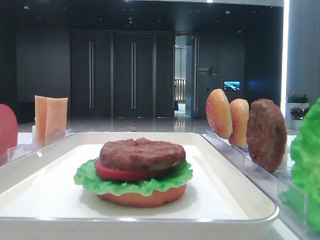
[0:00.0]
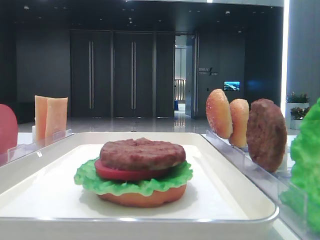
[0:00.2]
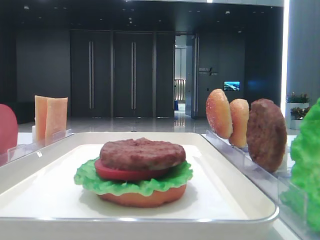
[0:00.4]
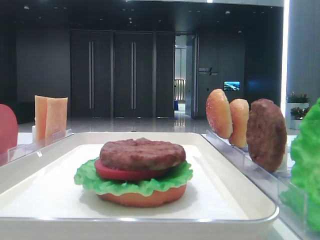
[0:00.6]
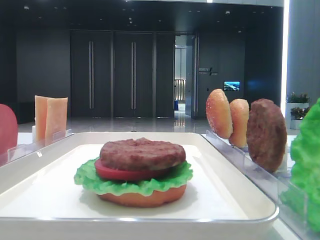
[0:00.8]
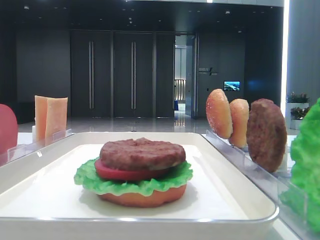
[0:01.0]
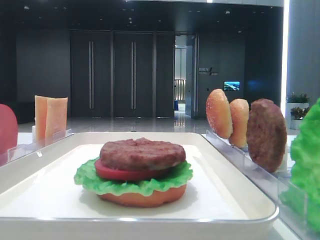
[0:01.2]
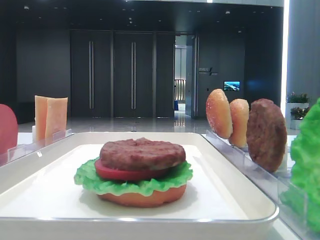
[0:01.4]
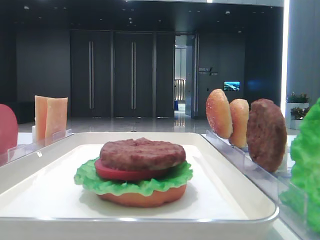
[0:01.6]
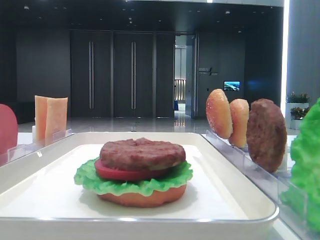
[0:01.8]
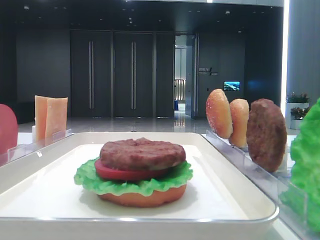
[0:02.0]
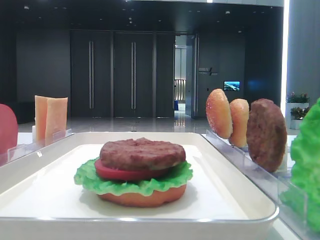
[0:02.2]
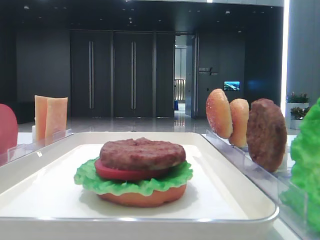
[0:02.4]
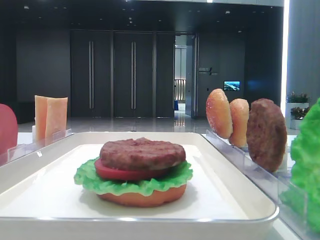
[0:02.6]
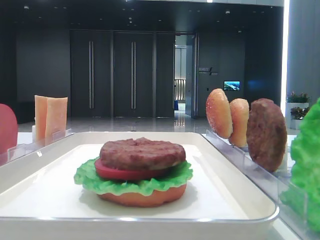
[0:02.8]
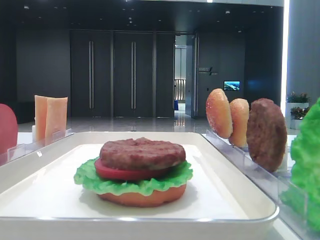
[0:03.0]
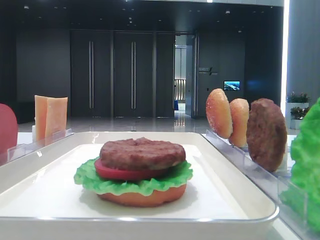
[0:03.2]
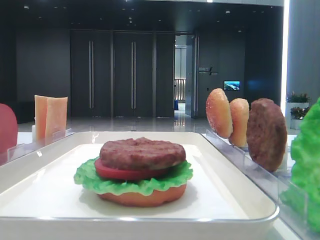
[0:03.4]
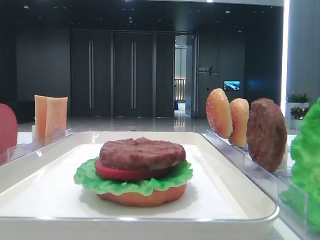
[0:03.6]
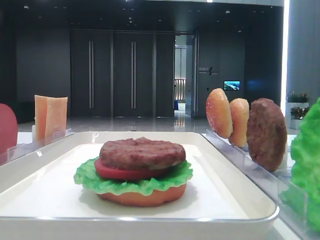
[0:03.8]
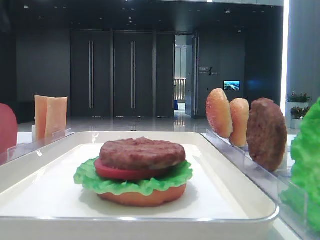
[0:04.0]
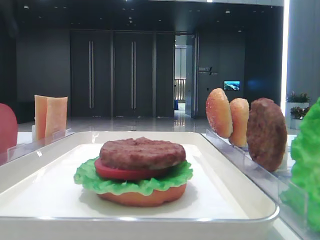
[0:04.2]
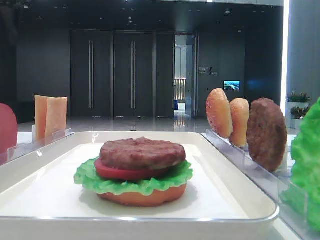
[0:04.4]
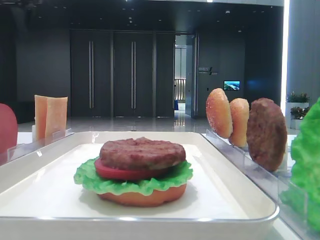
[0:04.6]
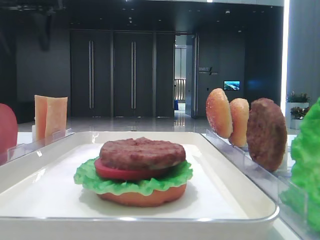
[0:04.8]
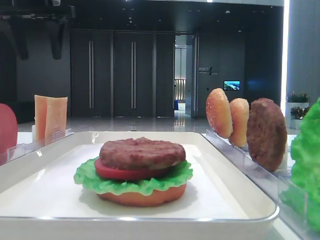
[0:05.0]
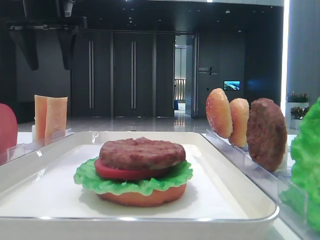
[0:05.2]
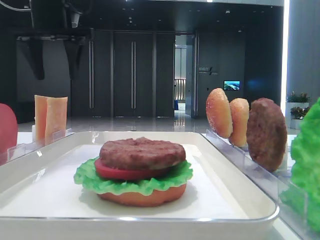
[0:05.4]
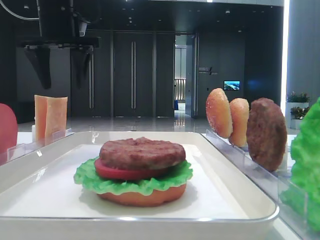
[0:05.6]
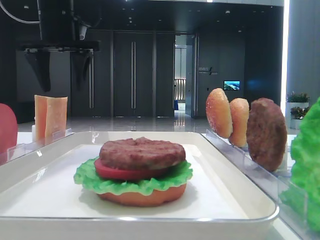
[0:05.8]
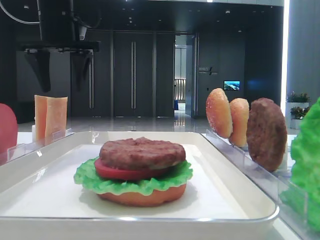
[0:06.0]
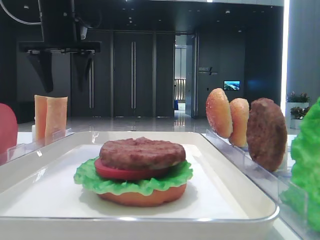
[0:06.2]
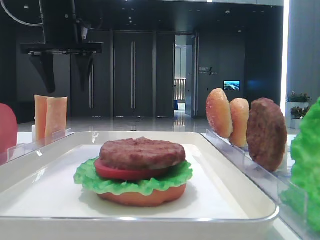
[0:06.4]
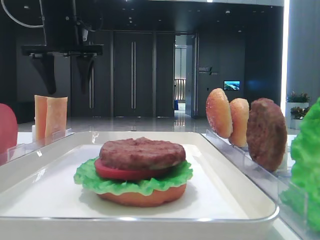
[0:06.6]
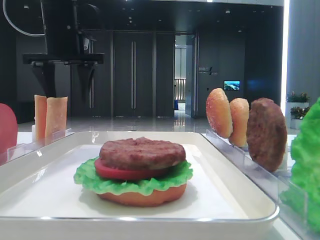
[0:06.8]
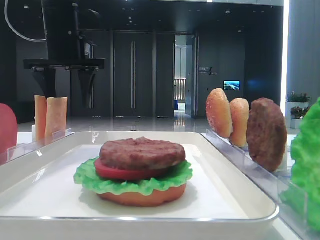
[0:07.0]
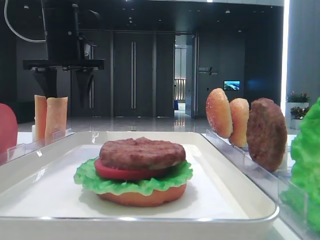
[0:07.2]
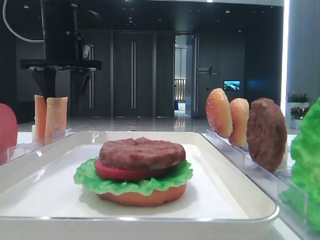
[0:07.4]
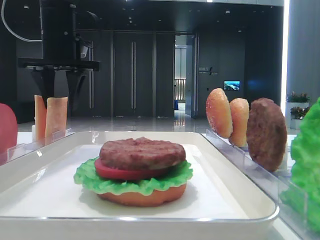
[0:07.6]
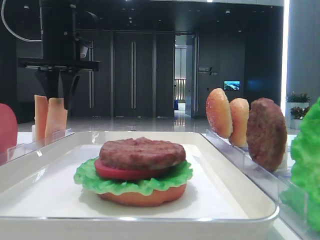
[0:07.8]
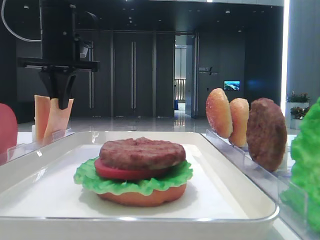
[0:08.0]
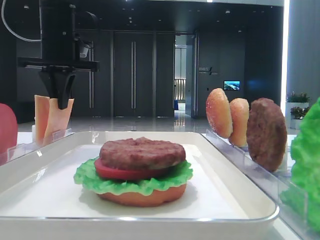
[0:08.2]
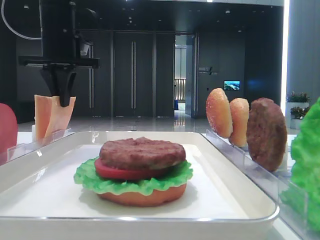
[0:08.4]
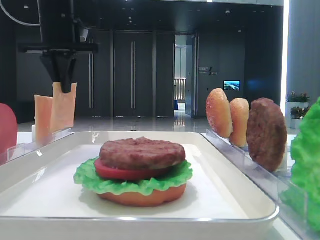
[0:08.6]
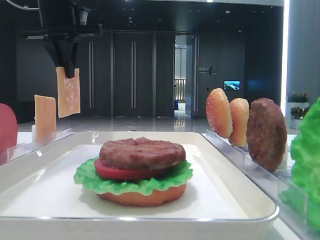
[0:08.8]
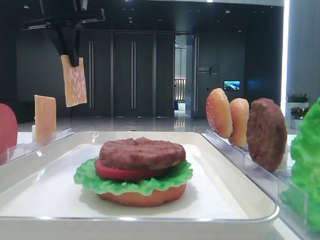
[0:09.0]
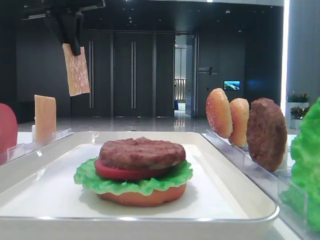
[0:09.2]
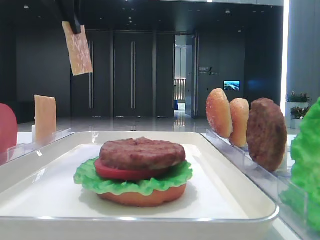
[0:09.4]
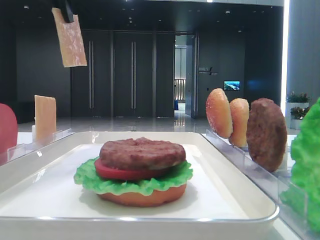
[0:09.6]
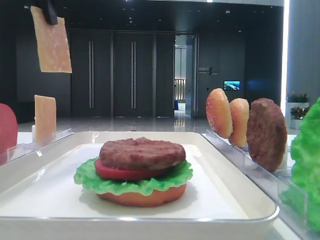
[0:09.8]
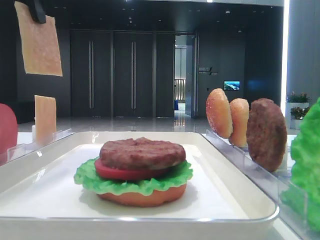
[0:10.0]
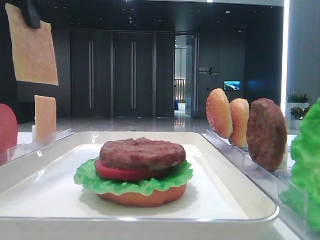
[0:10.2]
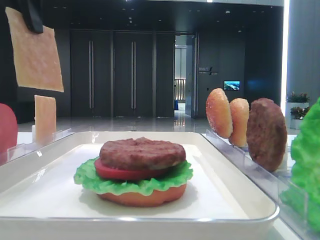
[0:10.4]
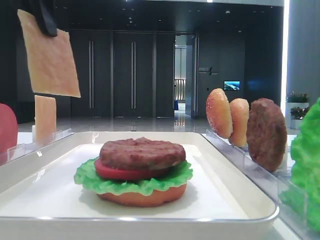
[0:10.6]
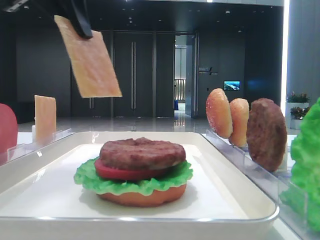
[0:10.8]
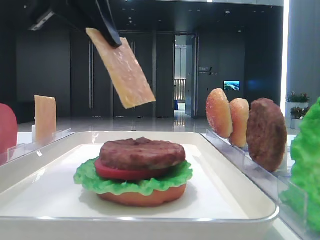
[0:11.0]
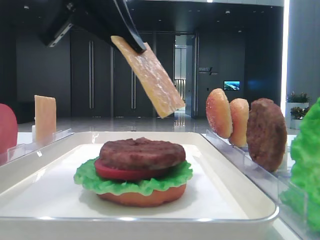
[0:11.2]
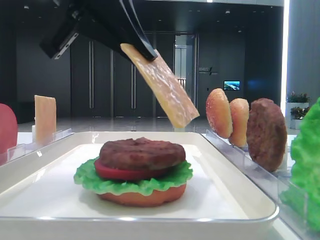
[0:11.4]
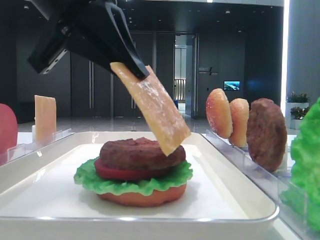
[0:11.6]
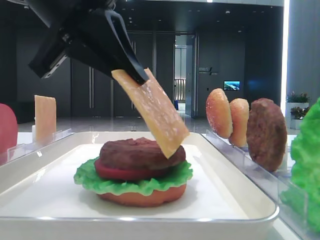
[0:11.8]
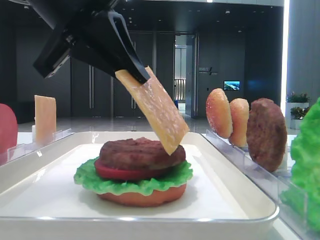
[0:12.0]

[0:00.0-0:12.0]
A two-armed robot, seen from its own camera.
Step, 0:00.0 to 0:08.0: Pick up the cheese slice with the left hand.
0:04.4 to 0:06.0: The left gripper shifts some 15 cm to the right and downward.
0:06.0 to 0:07.6: The grippers stay close to where they were, moving slightly.
0:07.6 to 0:09.0: The left gripper moves upward, approximately 5 cm, and closes its fingers.
0:09.0 to 0:10.4: The left gripper is displaced backward by approximately 10 cm.
0:10.4 to 0:12.0: The left gripper travels downward, to the right and backward by roughly 15 cm.

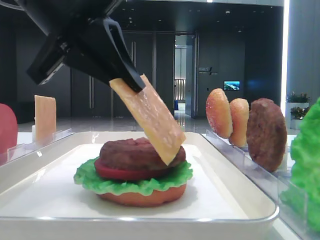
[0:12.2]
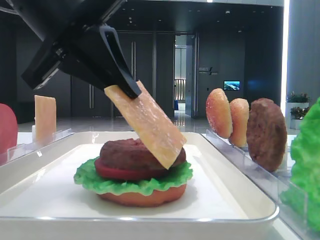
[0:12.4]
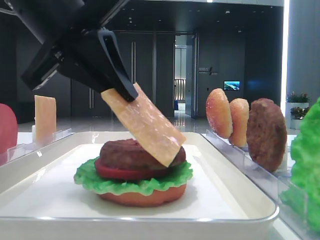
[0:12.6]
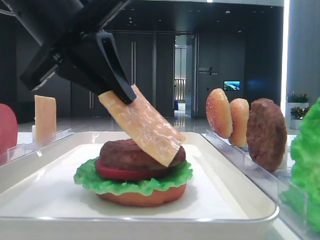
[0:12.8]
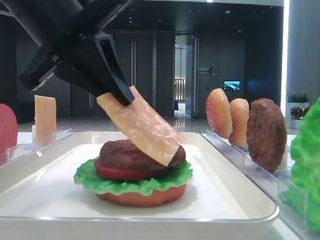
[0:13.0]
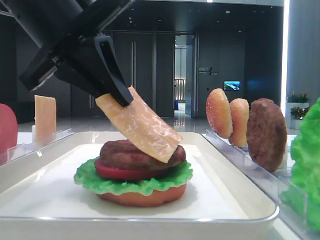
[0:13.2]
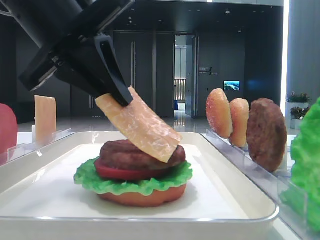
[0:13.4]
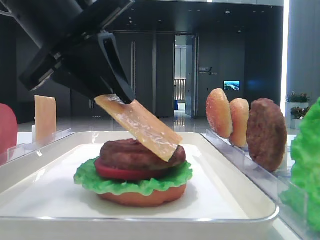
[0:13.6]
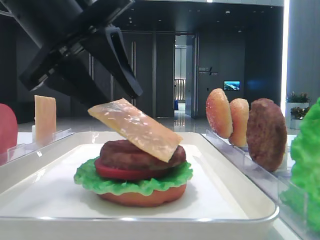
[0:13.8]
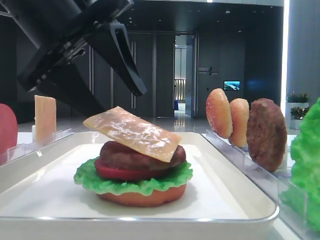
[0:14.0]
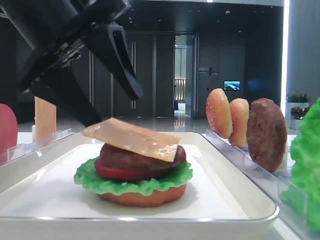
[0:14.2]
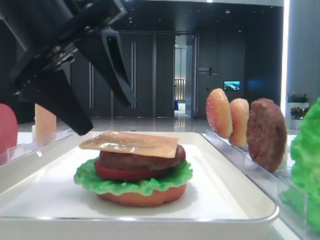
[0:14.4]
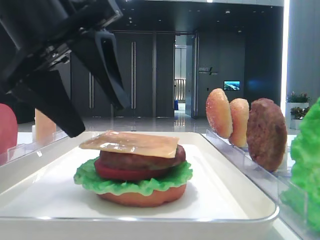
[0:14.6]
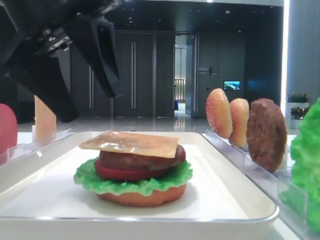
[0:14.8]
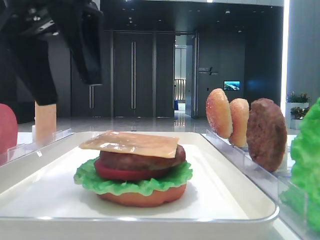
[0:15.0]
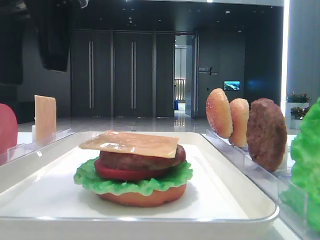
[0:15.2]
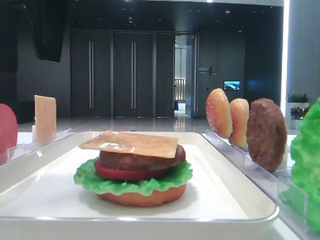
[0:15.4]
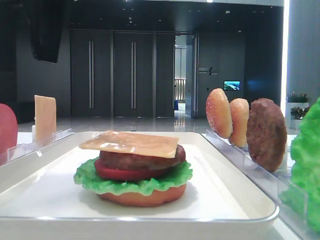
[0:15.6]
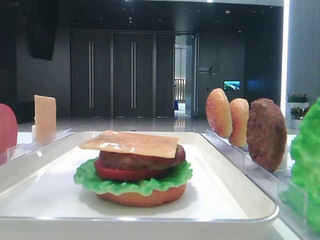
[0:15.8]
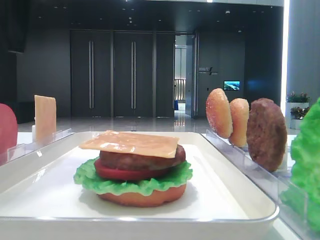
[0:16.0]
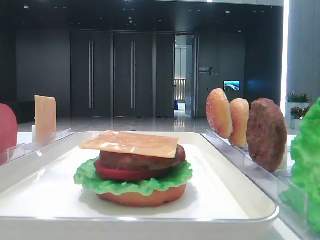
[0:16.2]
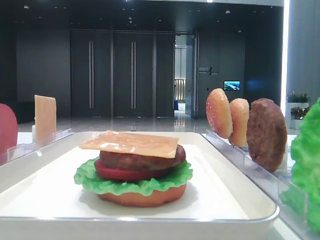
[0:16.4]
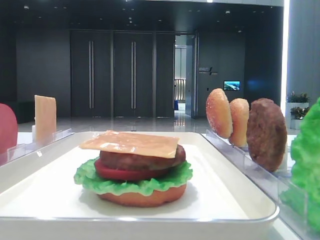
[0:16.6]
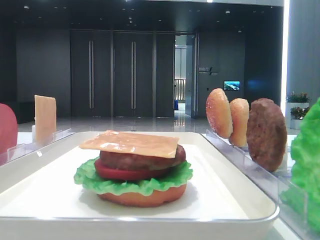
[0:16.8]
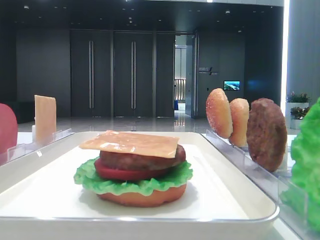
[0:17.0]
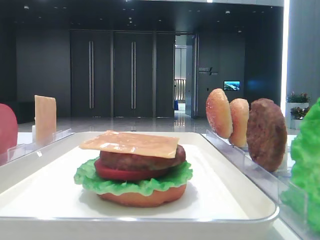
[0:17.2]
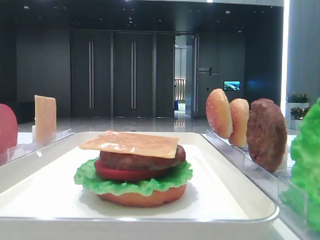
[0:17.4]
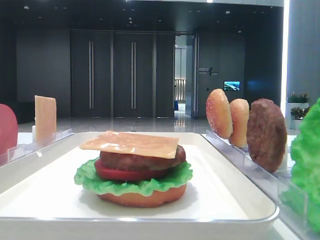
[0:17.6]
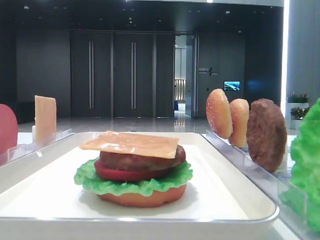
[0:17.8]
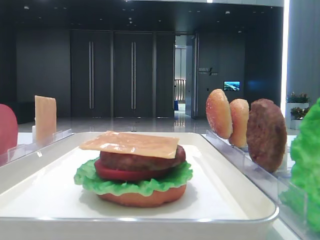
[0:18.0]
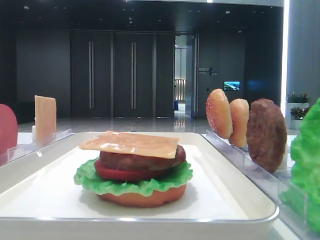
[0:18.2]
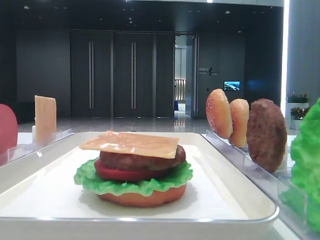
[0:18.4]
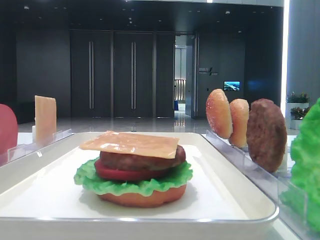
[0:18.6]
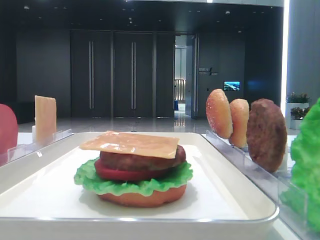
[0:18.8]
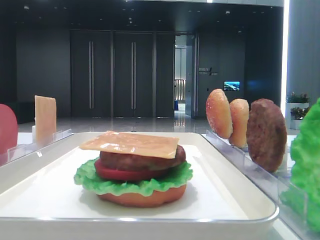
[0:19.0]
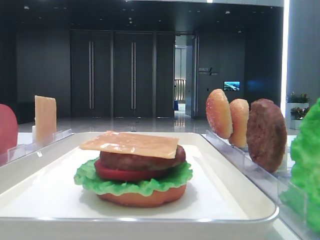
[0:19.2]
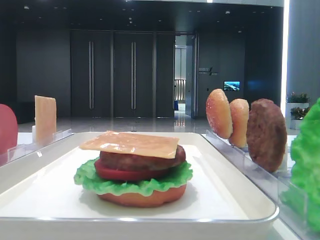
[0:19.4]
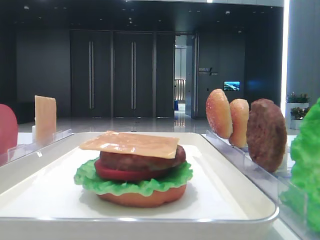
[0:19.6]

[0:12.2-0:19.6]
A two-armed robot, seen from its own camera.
Step, 0:12.2 to 0:14.2: Place the cheese slice on the patty with the left hand.
0:12.2 to 0:13.6: There are only small adjustments of the grippers.
0:13.6 to 0:15.2: The left gripper travels upward by some 5 cm, and opens up.
0:15.2 to 0:16.6: The left gripper travels to the left and upward by approximately 20 cm.

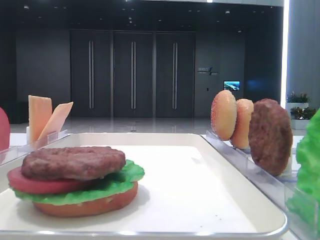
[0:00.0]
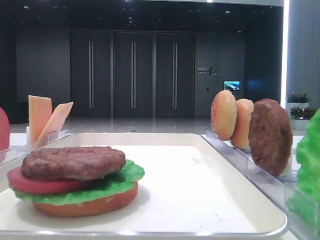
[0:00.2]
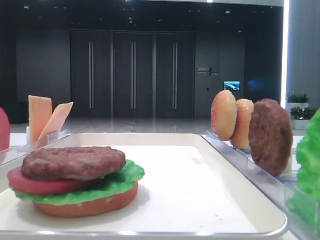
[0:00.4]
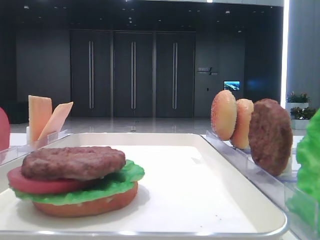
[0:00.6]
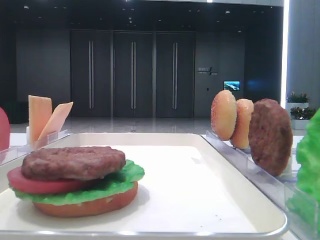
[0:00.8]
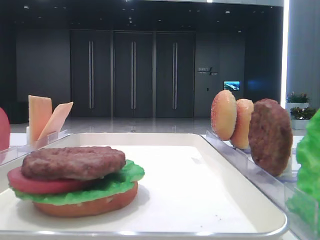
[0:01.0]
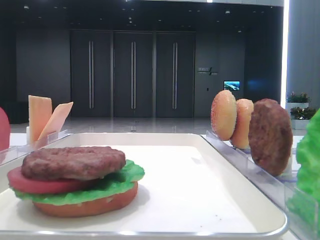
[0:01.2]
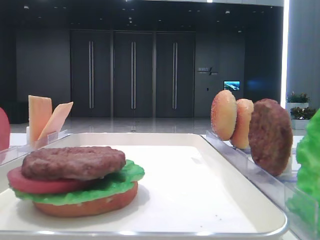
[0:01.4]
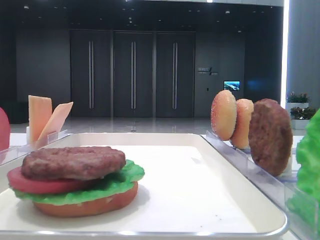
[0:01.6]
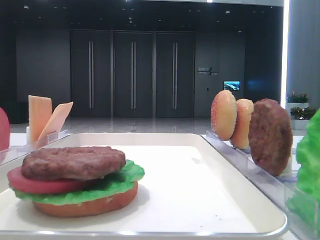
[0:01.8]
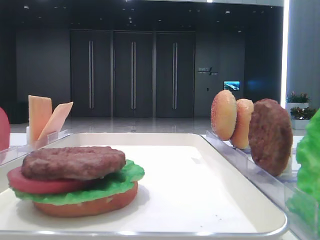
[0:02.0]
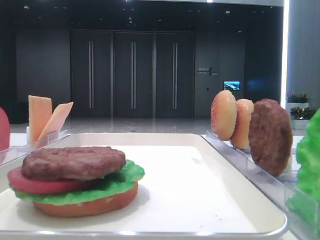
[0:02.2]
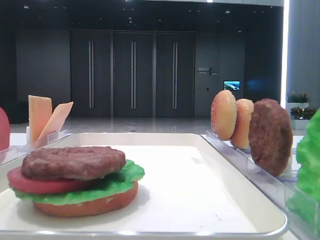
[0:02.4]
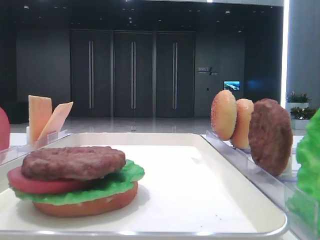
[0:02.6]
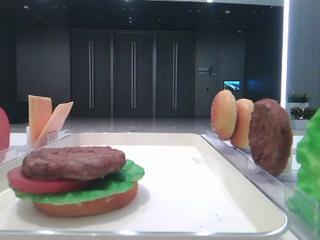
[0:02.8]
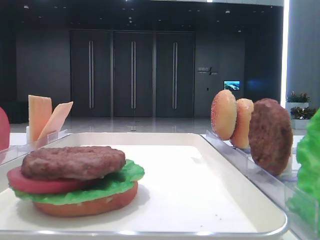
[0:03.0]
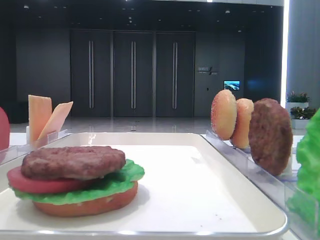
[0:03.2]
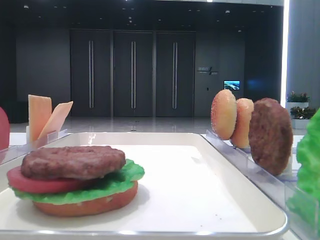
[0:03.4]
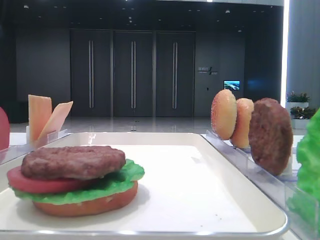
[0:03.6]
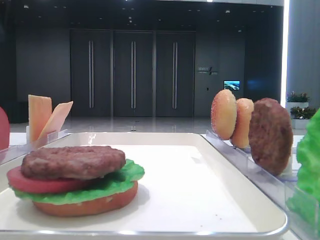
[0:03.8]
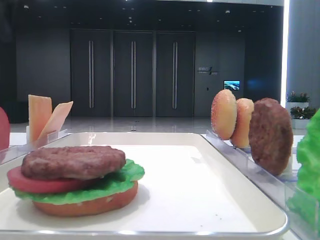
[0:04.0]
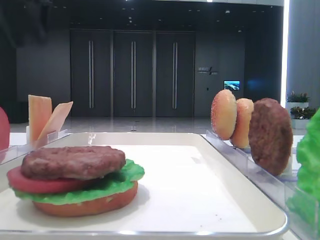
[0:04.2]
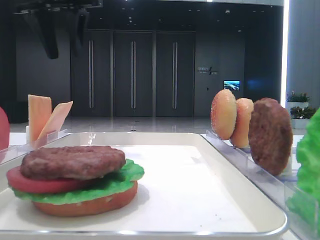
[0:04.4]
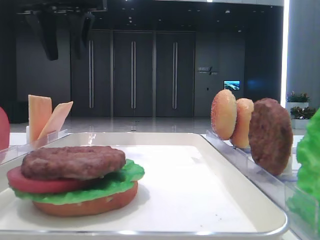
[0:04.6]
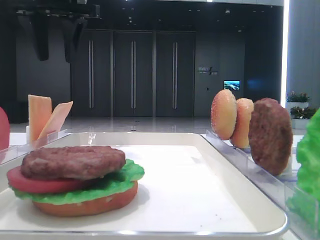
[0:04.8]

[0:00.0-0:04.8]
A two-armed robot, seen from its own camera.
0:03.2 to 0:04.8: The left gripper is displaced to the right and forward by about 20 cm.
